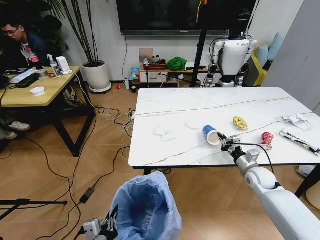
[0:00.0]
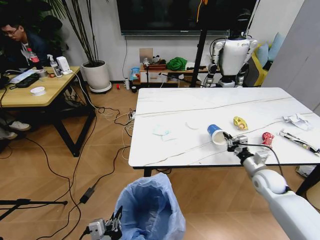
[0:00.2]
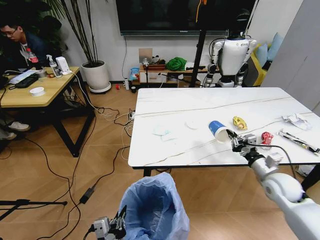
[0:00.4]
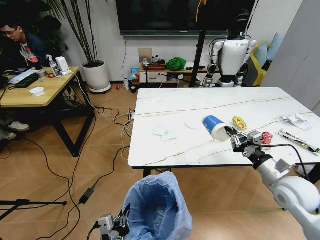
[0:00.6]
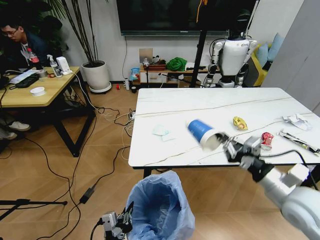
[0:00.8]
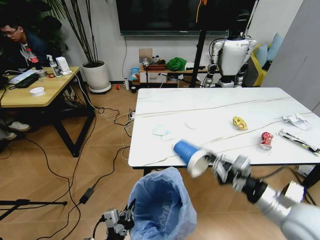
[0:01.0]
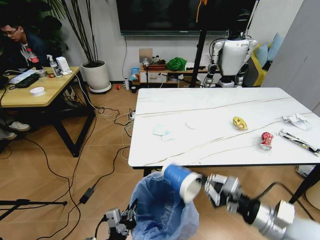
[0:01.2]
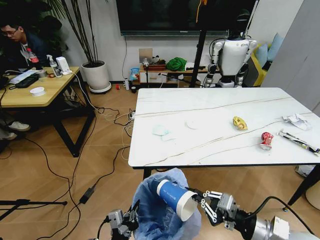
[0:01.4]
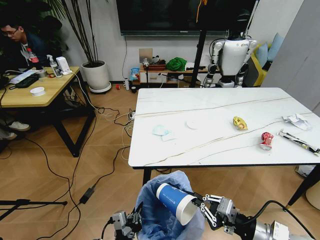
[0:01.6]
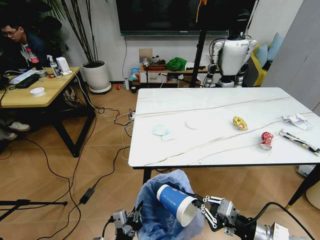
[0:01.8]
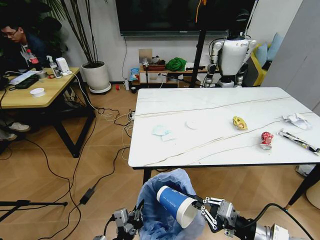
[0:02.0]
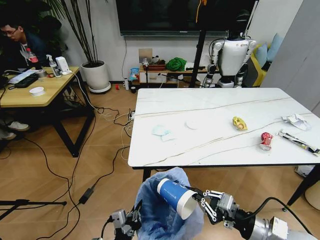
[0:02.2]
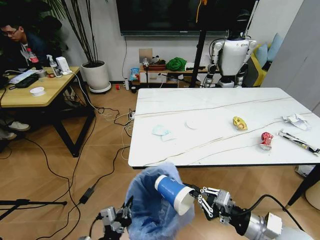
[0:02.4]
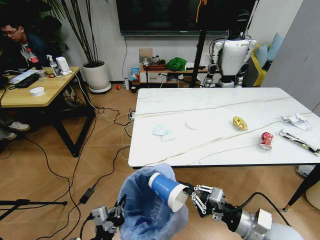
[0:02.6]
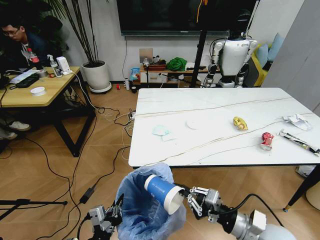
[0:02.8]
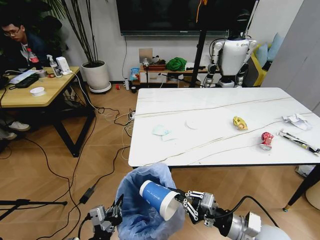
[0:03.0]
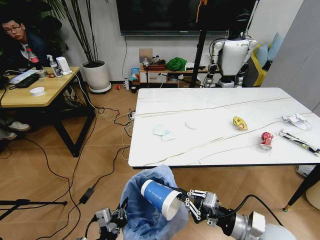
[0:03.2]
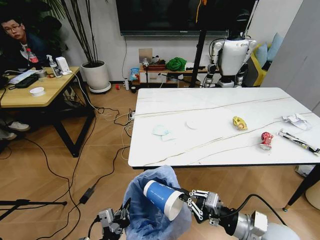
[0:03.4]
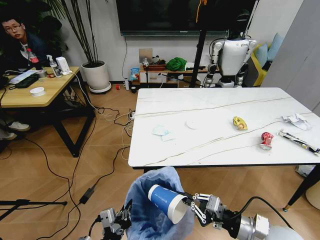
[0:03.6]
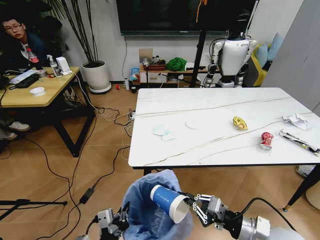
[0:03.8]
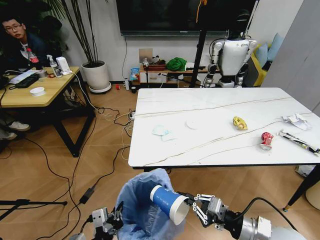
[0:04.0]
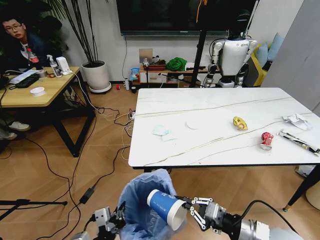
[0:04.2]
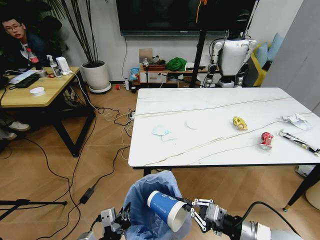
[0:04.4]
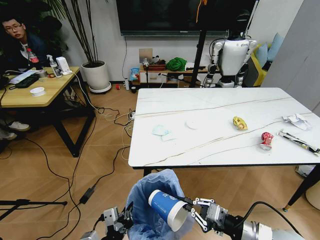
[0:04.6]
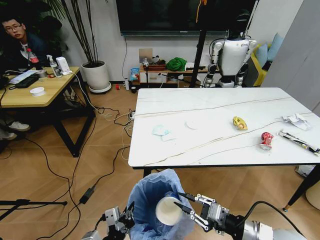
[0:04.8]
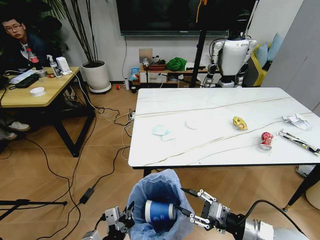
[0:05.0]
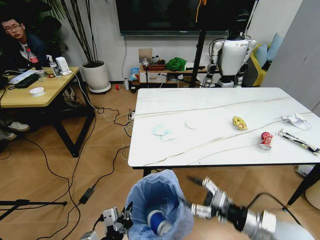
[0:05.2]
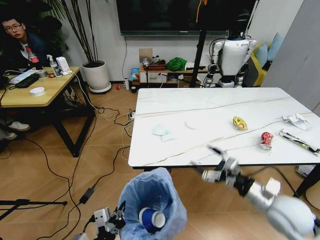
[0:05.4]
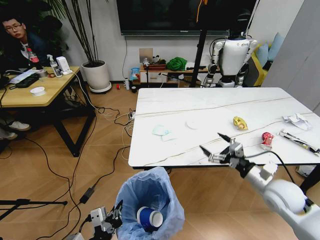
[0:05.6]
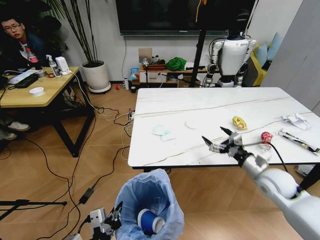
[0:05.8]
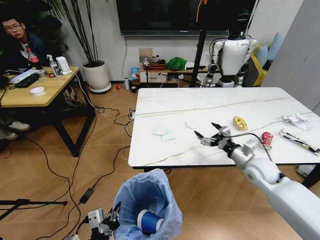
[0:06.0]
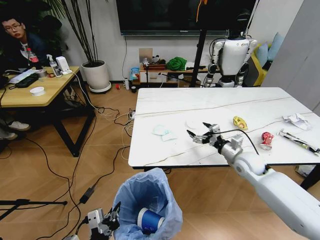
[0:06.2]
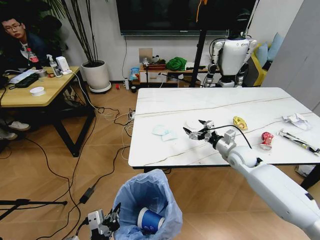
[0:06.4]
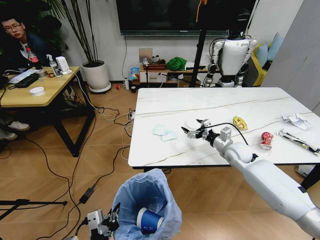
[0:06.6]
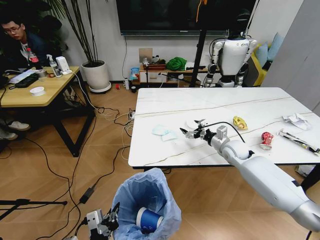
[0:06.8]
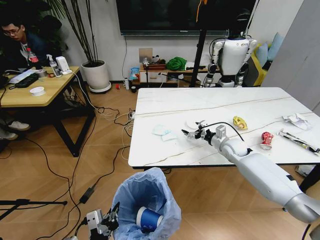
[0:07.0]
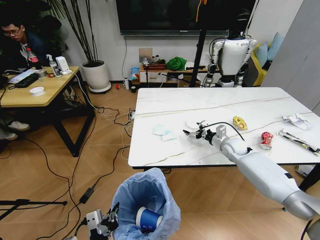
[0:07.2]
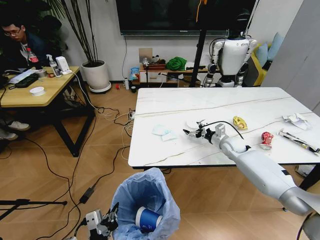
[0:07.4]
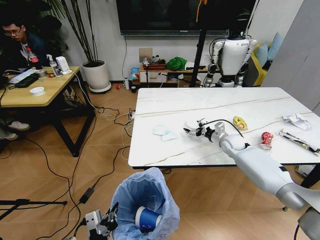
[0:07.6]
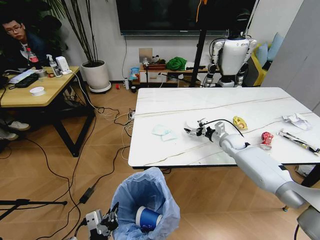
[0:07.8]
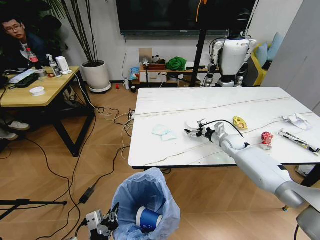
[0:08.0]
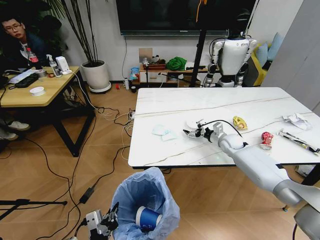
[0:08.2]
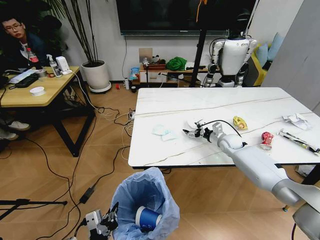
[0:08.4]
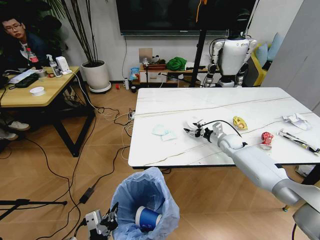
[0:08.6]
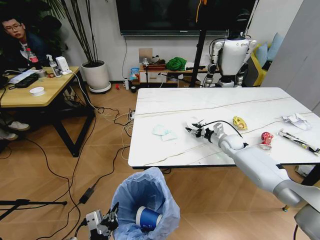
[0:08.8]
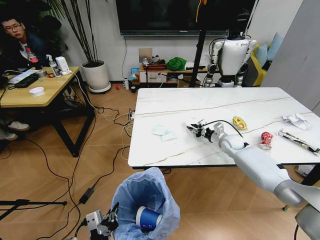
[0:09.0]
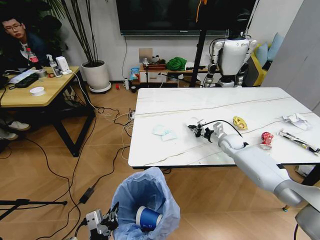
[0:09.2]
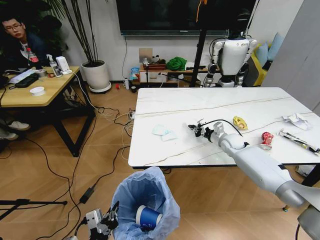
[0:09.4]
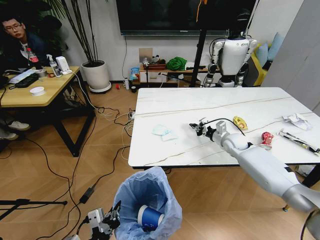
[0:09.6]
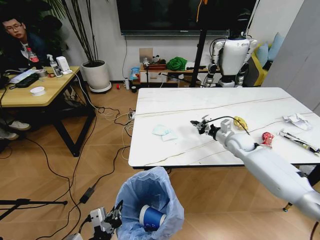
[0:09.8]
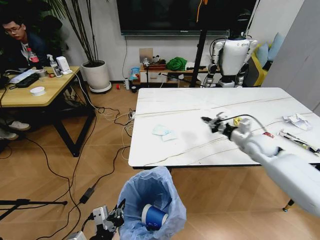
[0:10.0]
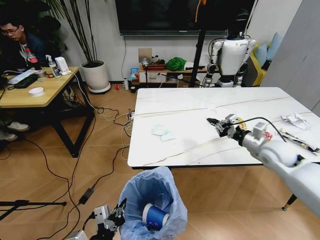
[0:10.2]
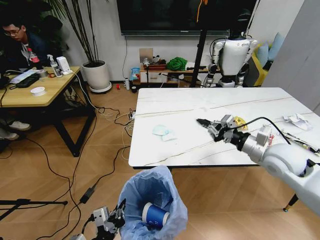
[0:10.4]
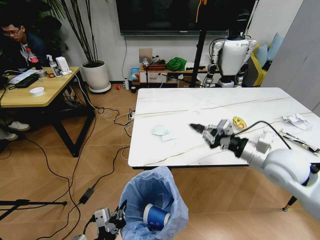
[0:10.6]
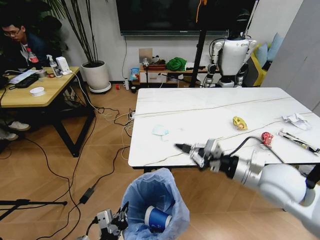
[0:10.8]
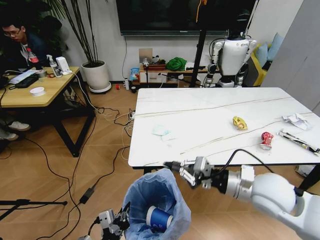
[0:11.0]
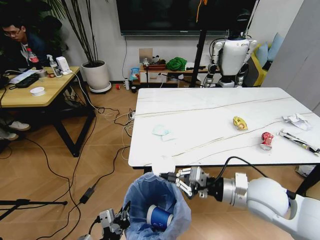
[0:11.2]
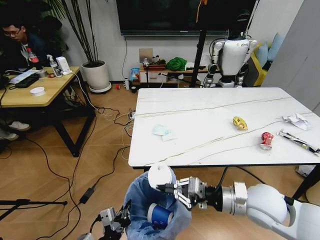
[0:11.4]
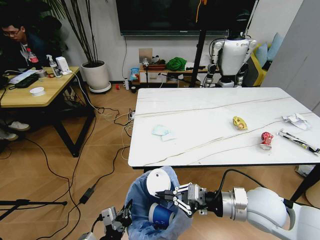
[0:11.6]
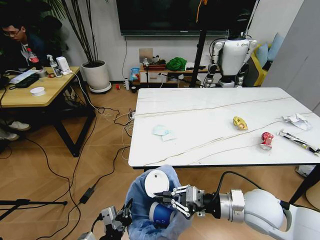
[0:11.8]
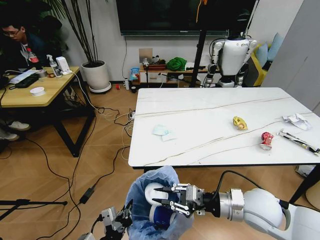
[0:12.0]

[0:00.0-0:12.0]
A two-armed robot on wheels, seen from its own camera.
Task of the whole recording: Pick up the trash bin and place the trash from the table into it.
0:00.0 to 0:01.6: The left gripper moves about 5 cm, while the right gripper goes approximately 30 cm backward and upward.
0:01.6 to 0:03.0: The right gripper ends up about 5 cm from where it was, while the left gripper ends up roughly 5 cm from where it was.
0:03.0 to 0:04.4: The grippers move only a little.
0:04.4 to 0:06.0: The right gripper heads forward, covering about 20 cm, and opens up.
0:06.0 to 0:07.6: The right gripper moves forward, roughly 15 cm.
0:07.6 to 0:09.0: The right gripper closes its fingers.
0:09.0 to 0:10.4: The right gripper heads backward and upward, covering some 25 cm.
0:10.4 to 0:12.0: The right gripper goes some 15 cm backward, to the left and downward.

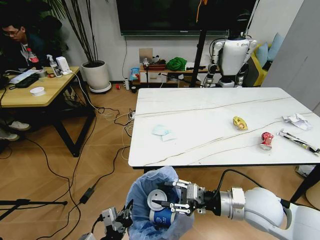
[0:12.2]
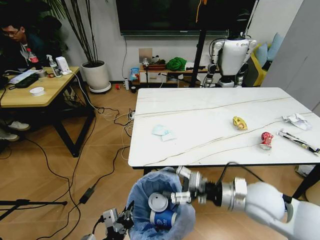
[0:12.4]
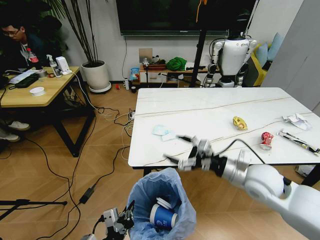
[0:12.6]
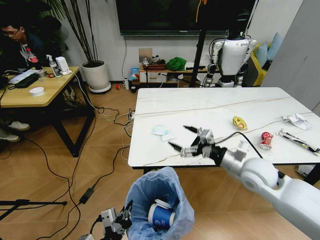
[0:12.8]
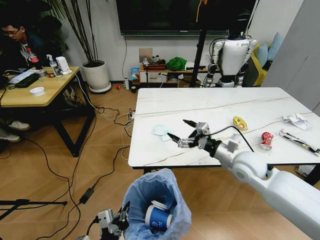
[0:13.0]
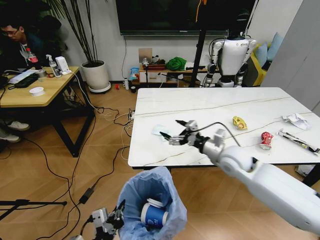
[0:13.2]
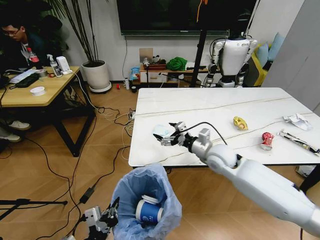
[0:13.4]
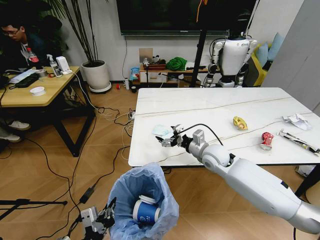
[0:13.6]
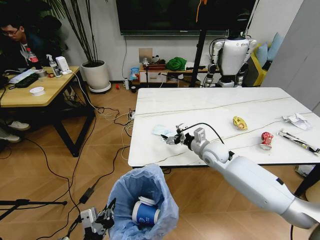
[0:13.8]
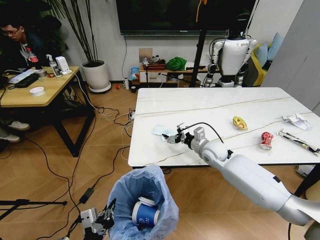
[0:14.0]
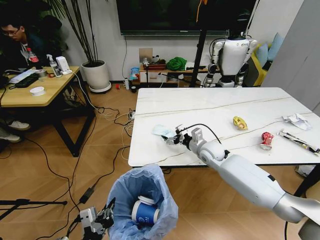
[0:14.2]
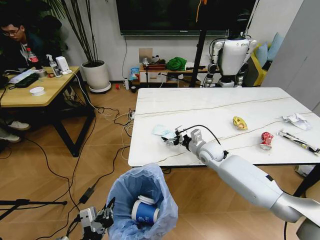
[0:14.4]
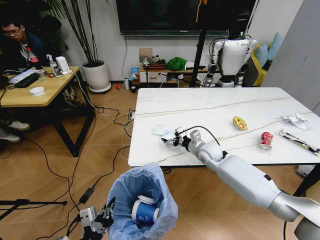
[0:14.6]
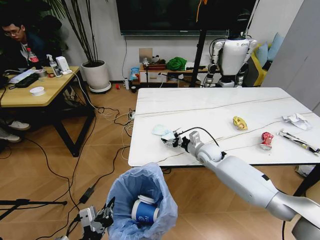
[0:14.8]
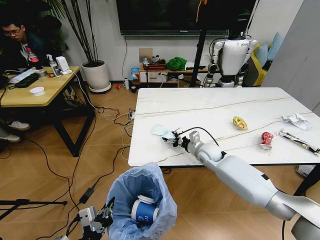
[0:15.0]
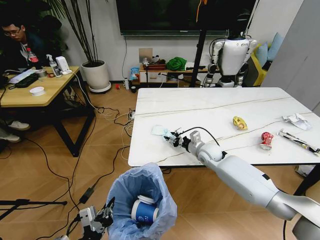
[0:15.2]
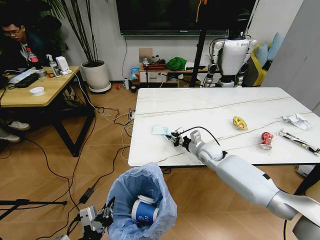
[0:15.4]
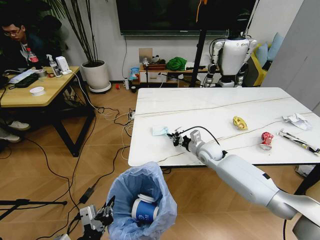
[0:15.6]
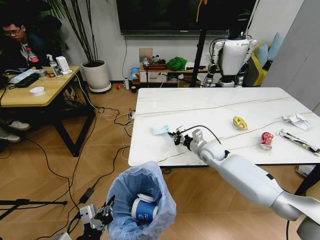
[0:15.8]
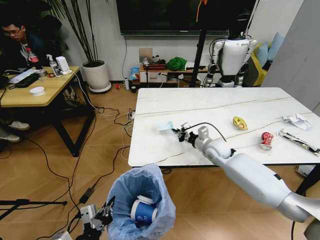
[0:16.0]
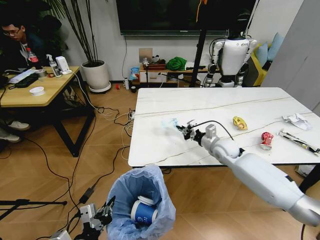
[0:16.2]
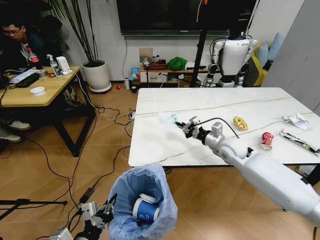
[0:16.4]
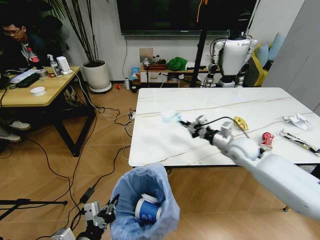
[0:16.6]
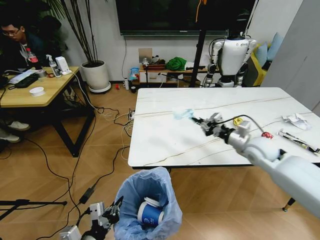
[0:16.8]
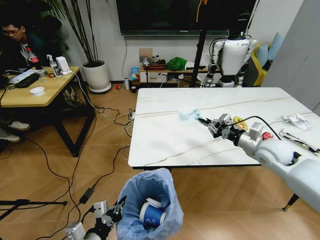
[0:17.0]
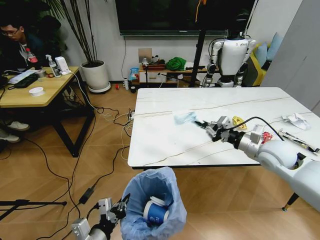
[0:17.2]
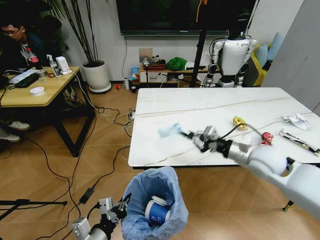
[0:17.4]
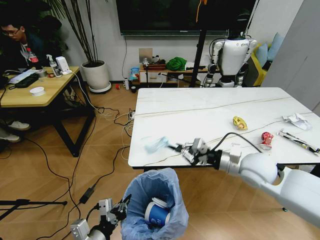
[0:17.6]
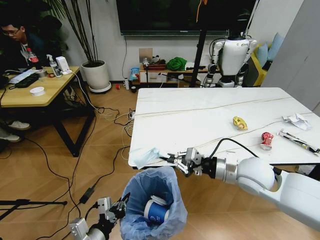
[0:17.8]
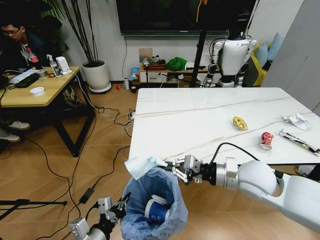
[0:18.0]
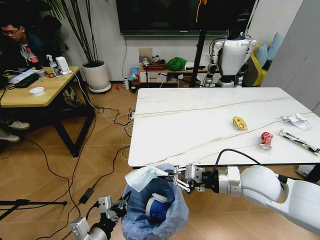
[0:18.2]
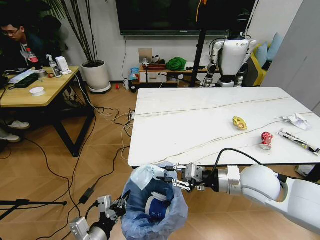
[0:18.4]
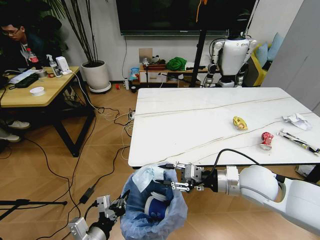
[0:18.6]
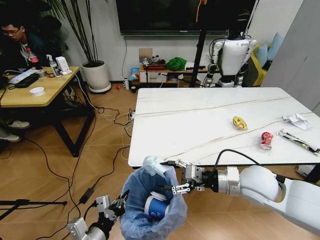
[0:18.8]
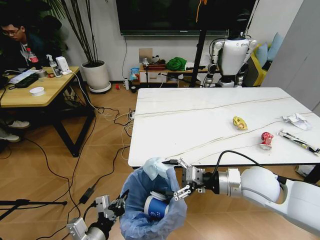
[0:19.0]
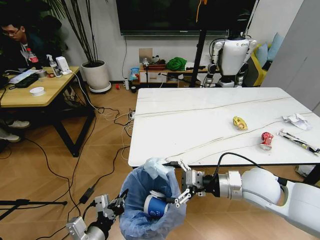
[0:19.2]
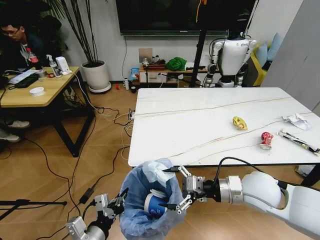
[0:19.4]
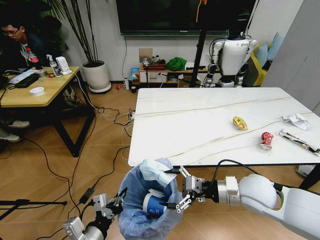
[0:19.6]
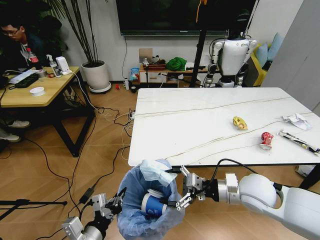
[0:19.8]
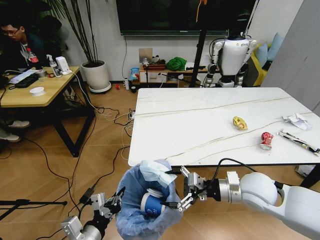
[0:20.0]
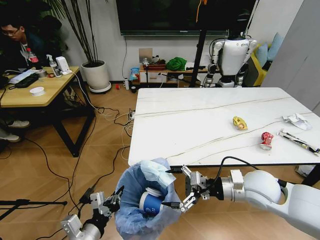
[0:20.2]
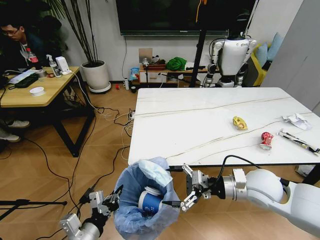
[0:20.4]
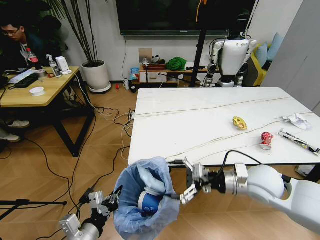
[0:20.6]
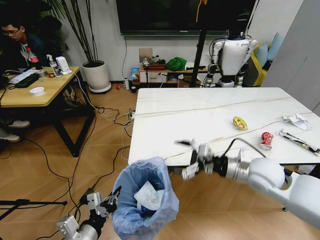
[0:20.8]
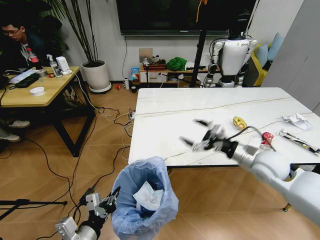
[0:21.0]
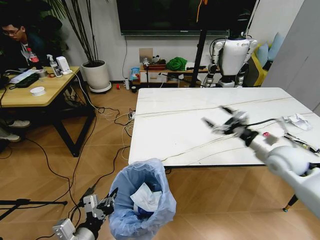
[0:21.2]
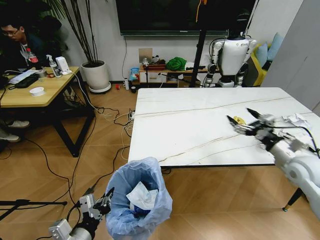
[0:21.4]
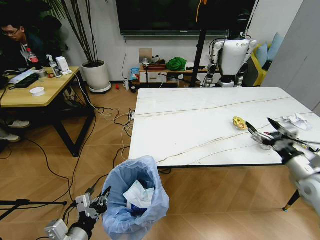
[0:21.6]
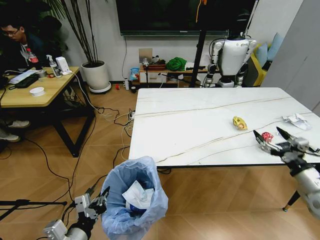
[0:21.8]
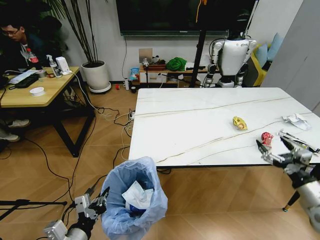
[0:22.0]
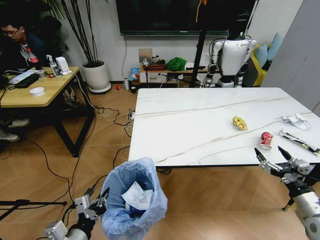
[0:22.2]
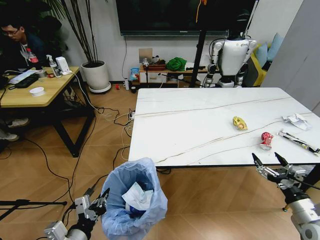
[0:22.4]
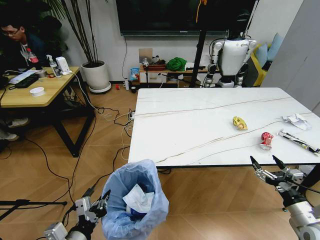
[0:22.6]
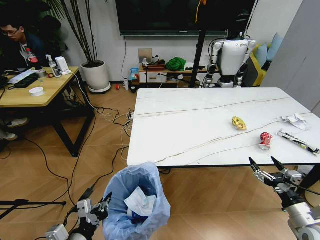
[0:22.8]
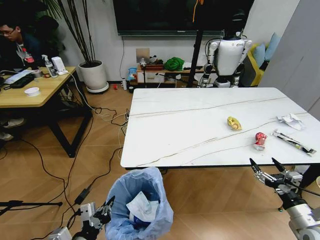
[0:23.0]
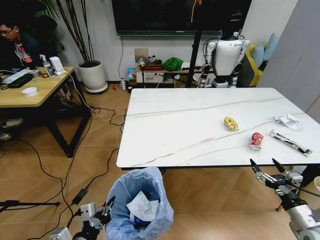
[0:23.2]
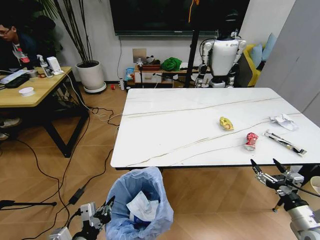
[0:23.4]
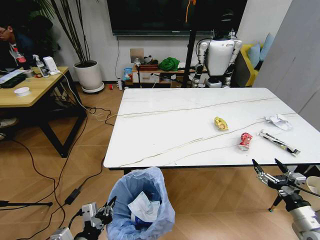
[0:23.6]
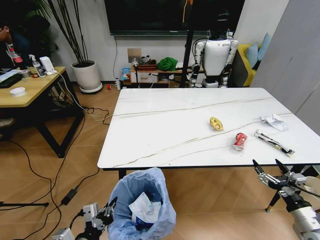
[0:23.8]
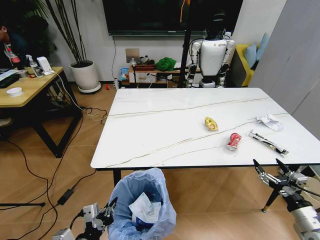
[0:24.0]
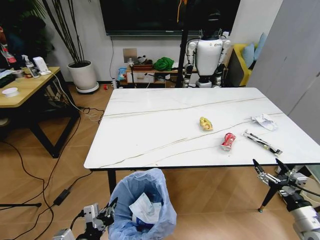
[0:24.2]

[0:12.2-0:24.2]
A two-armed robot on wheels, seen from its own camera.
Task of the whole recording: Pick up the trash bin and place the trash from the table into it.
0:12.2 to 0:13.8: The left gripper shifts by approximately 5 cm; the right gripper goes roughly 20 cm forward, and opens its fingers.
0:13.8 to 0:15.2: The right gripper ends up some 5 cm from where it was, and closes up.
0:15.2 to 0:16.6: The right gripper shifts approximately 15 cm upward, to the right and backward, and closes up.
0:16.6 to 0:18.2: The right gripper shifts some 15 cm backward.
0:18.2 to 0:19.8: The right gripper opens its fingers.
0:19.8 to 0:21.2: The right gripper shifts roughly 15 cm to the right and forward.
0:21.2 to 0:22.6: The right gripper travels backward and downward by roughly 25 cm.
